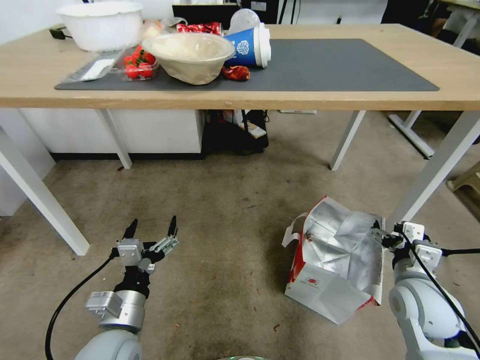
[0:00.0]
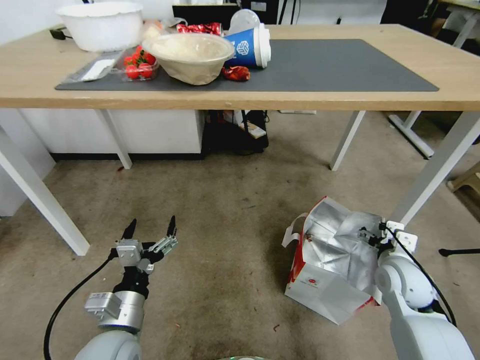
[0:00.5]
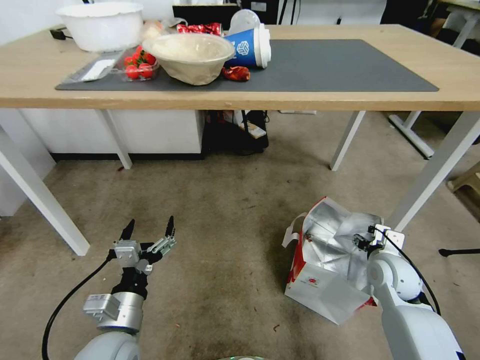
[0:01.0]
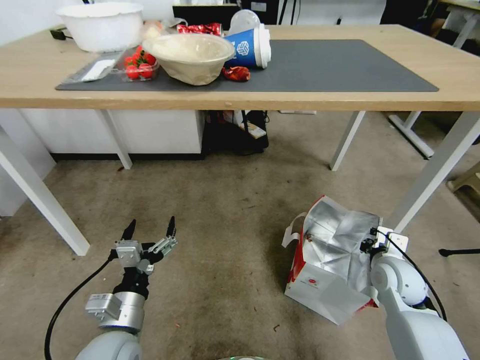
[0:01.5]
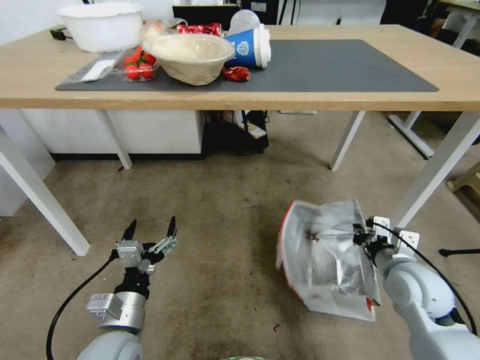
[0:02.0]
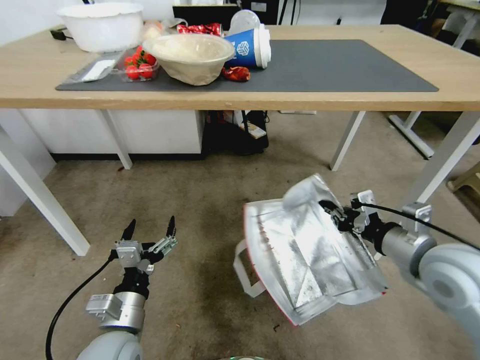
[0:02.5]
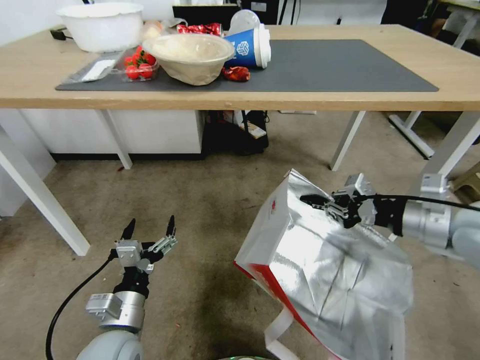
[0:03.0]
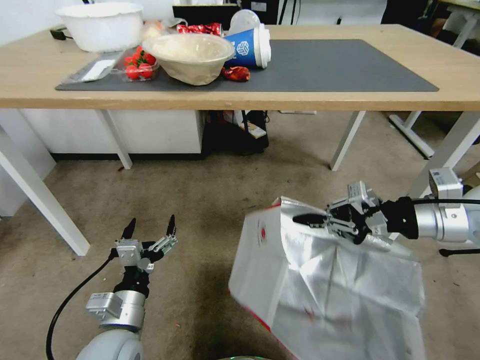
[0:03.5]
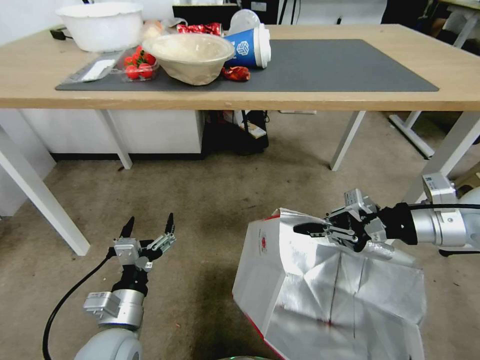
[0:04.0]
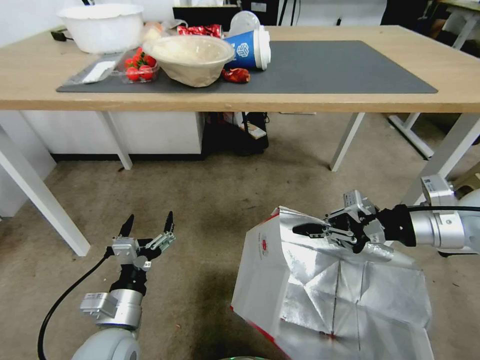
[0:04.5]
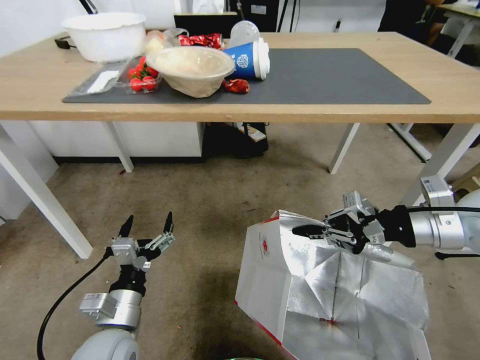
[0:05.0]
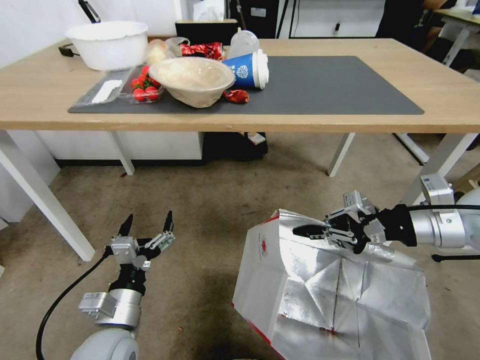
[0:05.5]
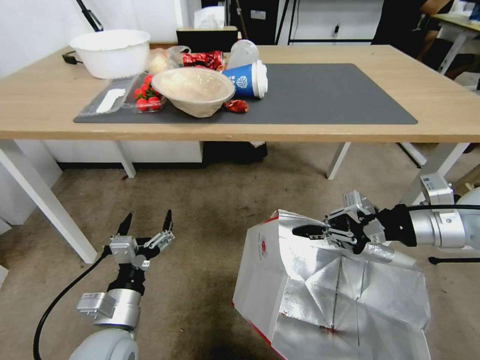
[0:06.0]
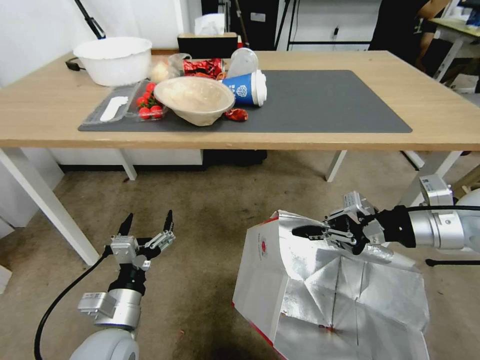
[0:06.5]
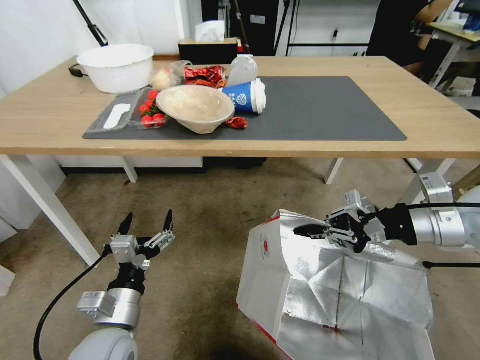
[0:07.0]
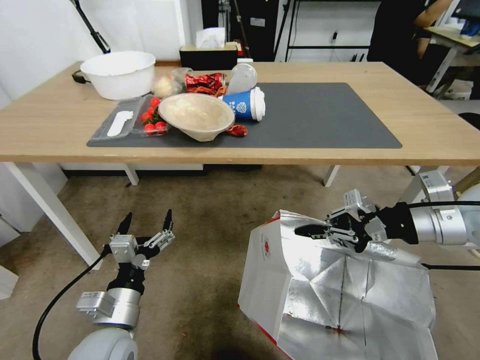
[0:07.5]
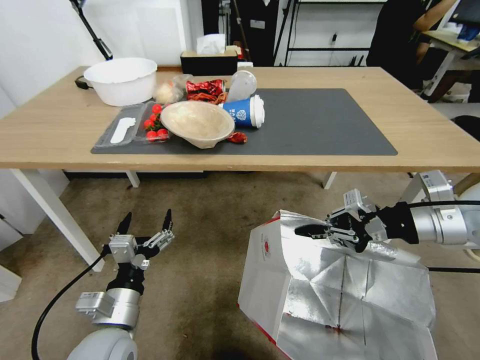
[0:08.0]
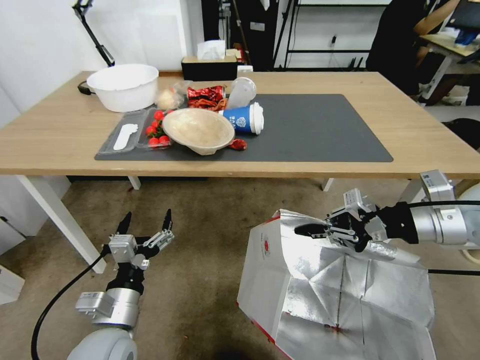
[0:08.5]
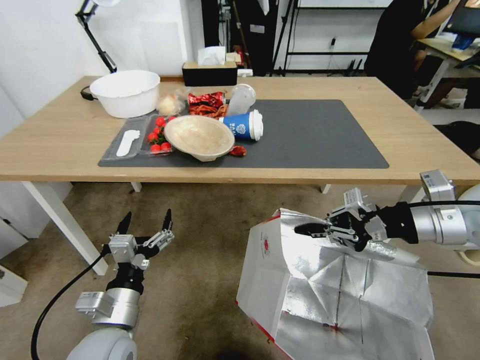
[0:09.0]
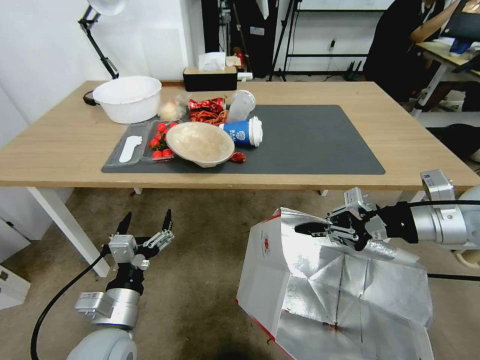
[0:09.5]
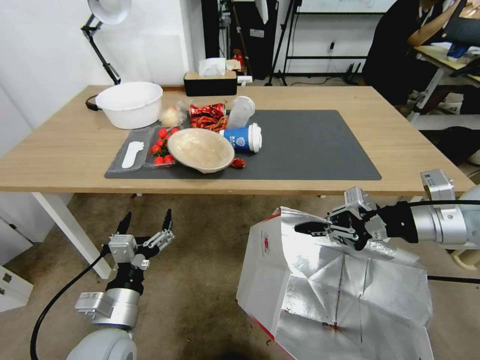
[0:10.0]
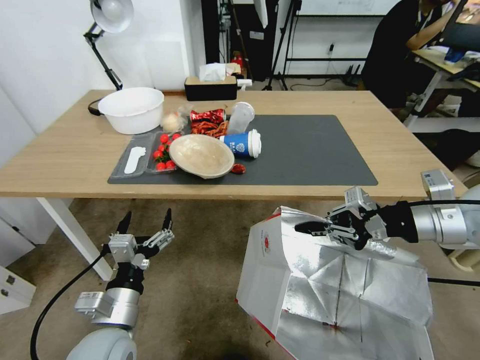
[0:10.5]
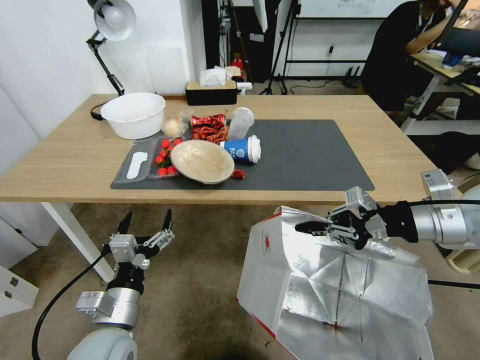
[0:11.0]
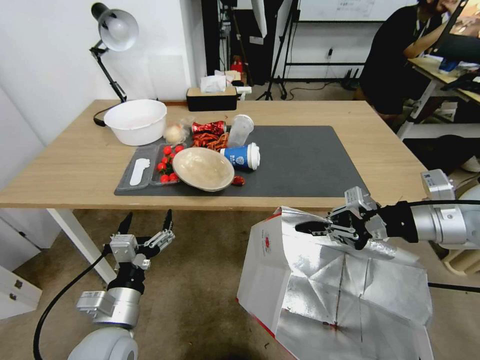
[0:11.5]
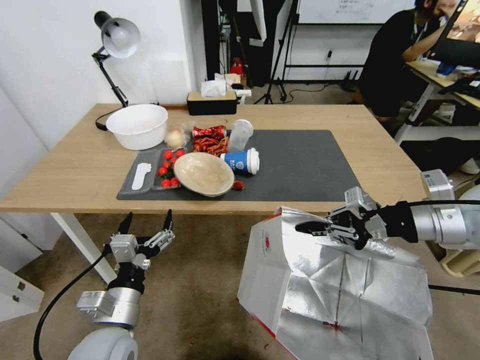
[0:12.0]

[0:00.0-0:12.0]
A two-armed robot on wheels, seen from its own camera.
Task of the whole recording: Pick up the food delivery bag from the floor and place it on the table.
0:00.0 to 0:02.0: The right gripper closes up.
0:02.0 to 0:04.0: The right gripper is displaced upward by some 20 cm.

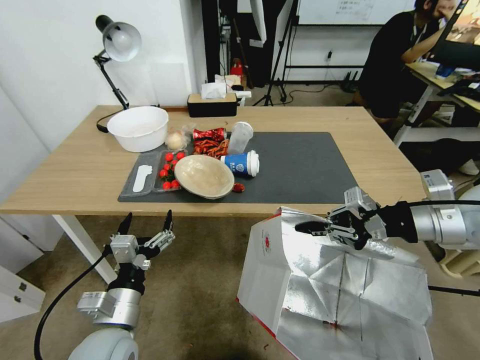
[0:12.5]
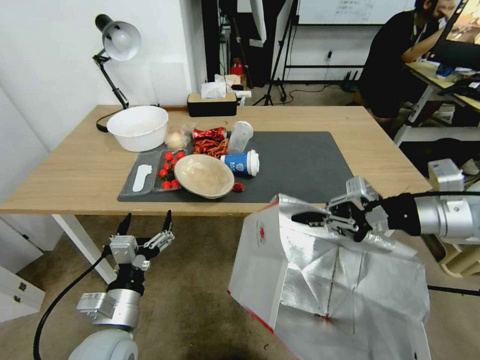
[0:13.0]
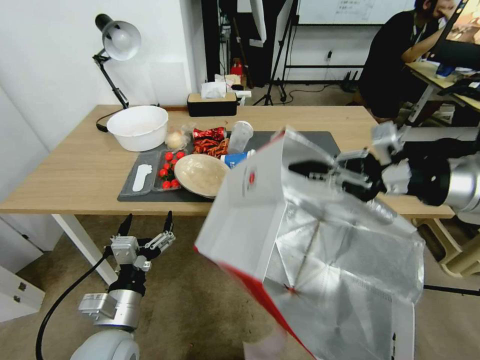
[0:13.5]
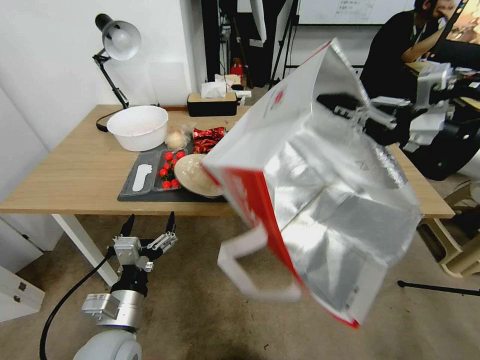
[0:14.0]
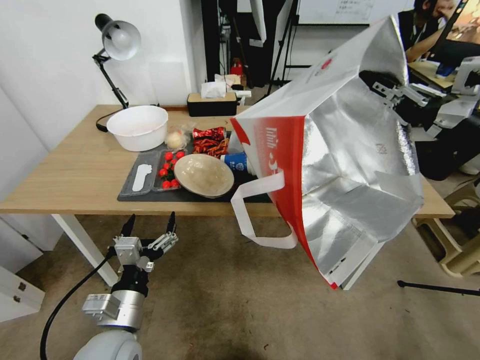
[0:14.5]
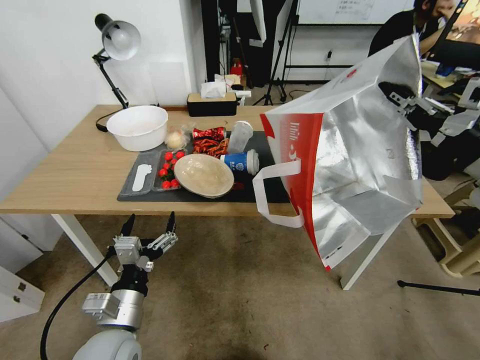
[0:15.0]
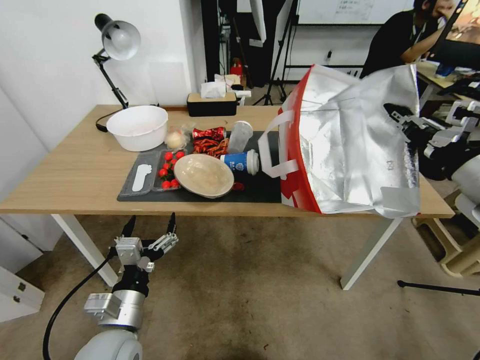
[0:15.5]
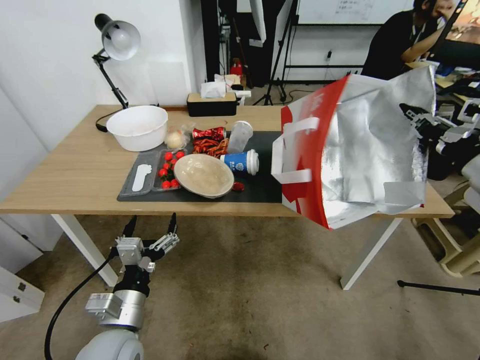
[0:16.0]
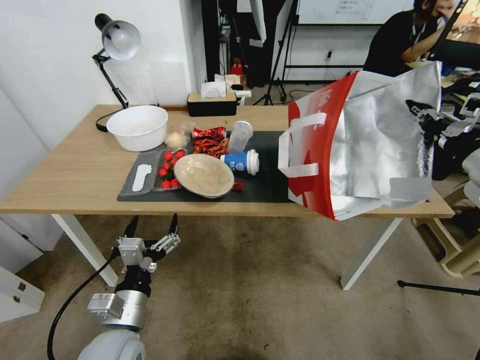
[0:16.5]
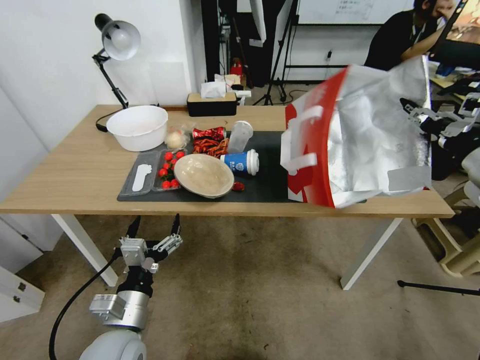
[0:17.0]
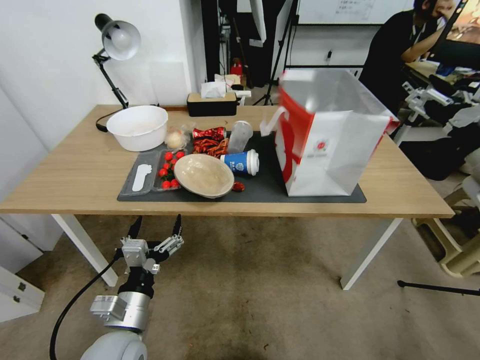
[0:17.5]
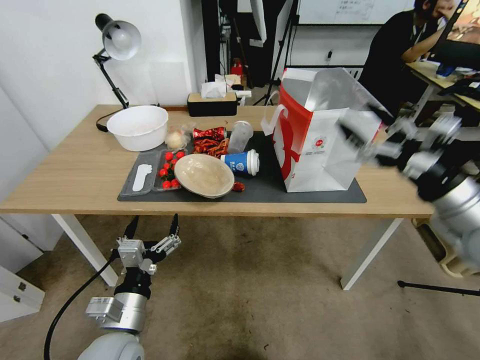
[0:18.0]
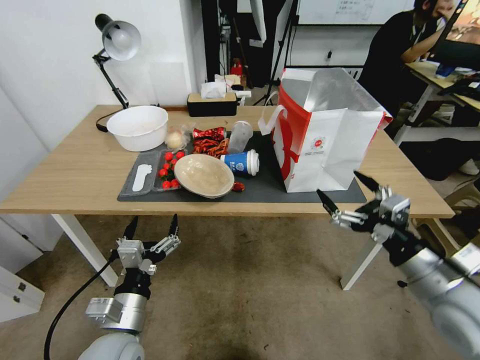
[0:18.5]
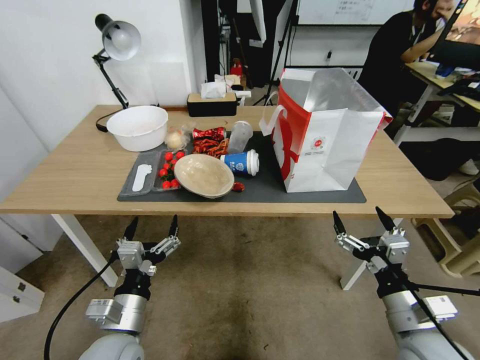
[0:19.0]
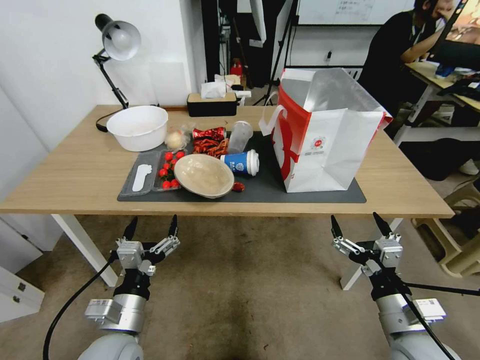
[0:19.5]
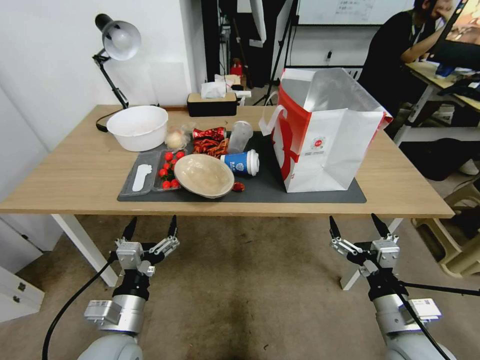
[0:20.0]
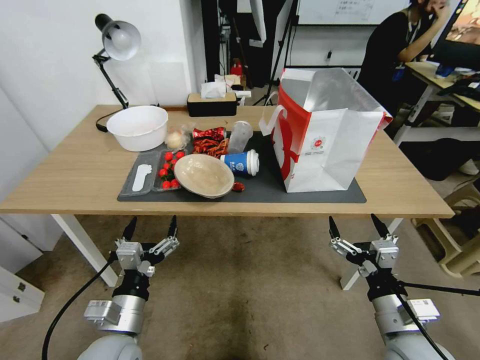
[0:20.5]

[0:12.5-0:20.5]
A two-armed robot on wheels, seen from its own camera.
Task of the whole recording: Pick up the food delivery bag from the floor and place it on the table.
0:12.5 to 0:14.5: The right gripper moves upward, some 10 cm.
0:14.5 to 0:16.5: The right gripper is displaced downward and to the right by approximately 10 cm.
0:16.5 to 0:18.5: The right gripper shifts roughly 20 cm downward, backward and to the left, and opens up.
0:18.5 to 0:20.5: The right gripper shifts some 10 cm downward and to the left.

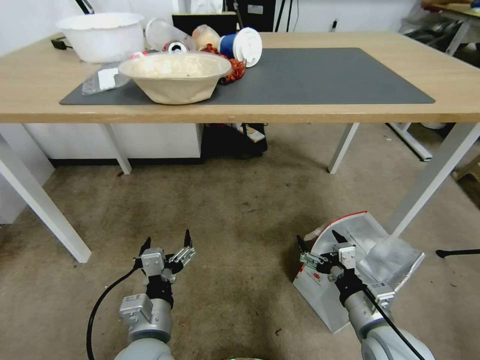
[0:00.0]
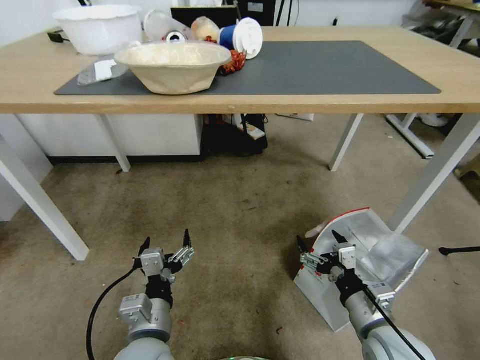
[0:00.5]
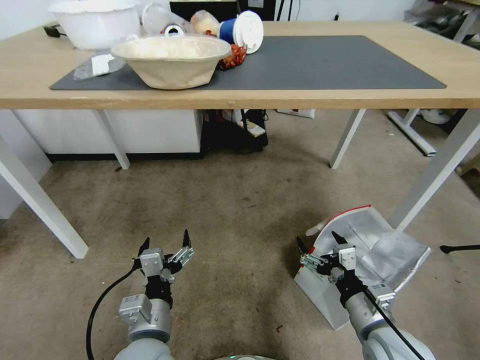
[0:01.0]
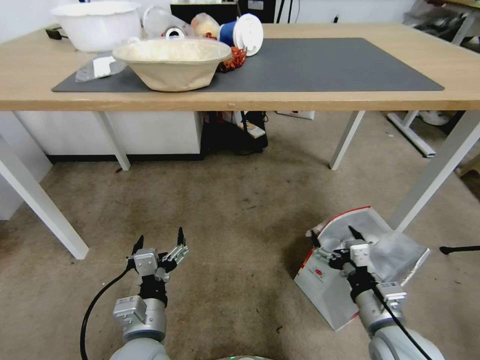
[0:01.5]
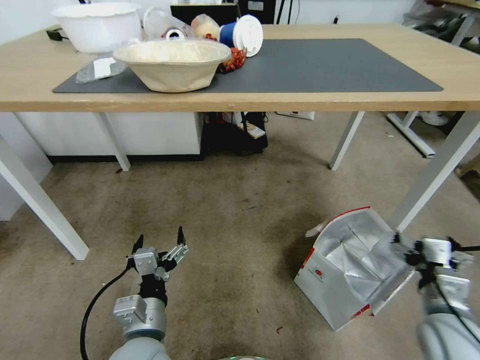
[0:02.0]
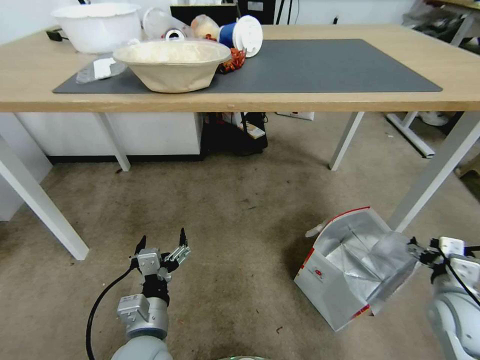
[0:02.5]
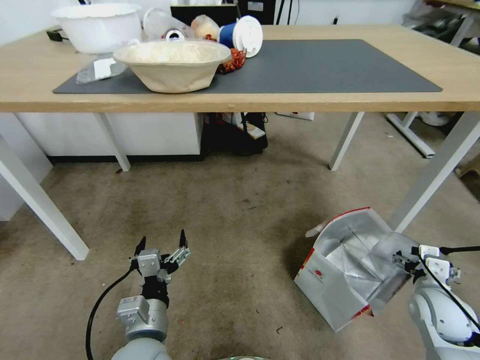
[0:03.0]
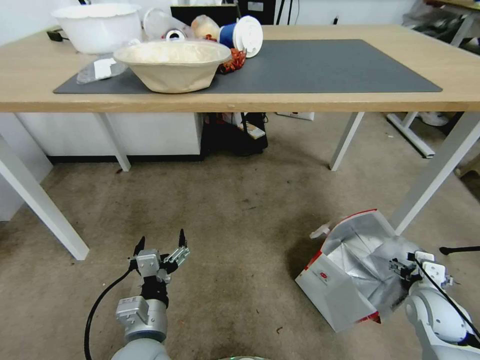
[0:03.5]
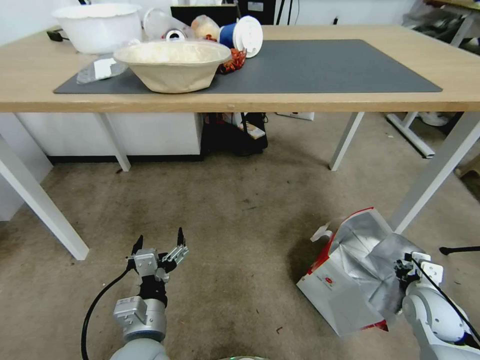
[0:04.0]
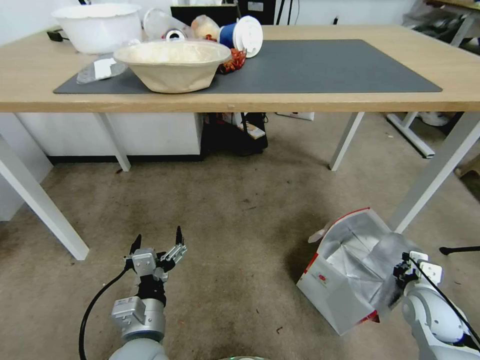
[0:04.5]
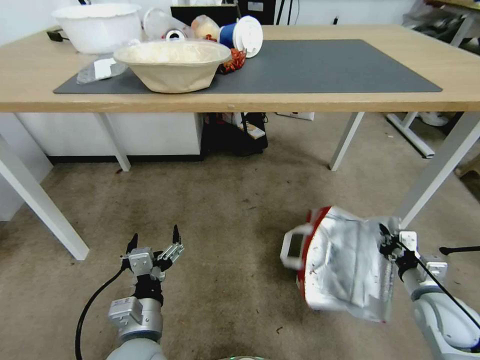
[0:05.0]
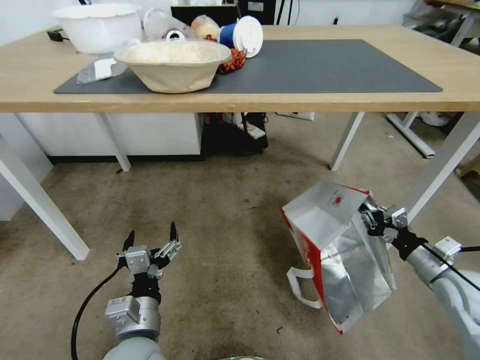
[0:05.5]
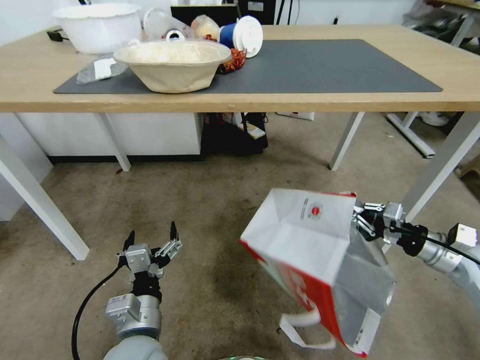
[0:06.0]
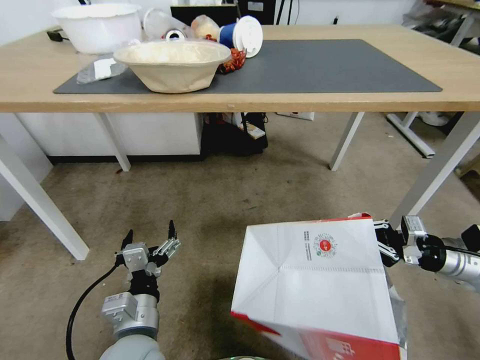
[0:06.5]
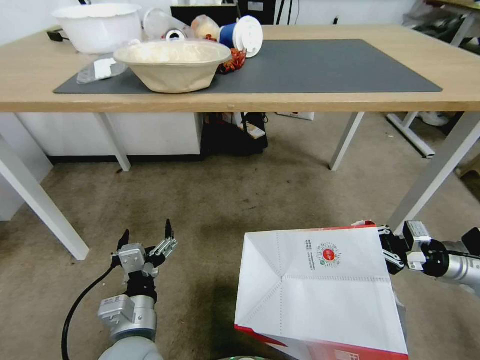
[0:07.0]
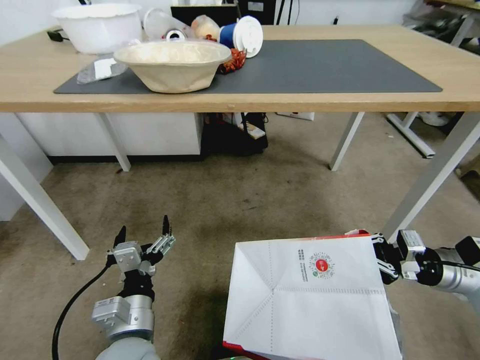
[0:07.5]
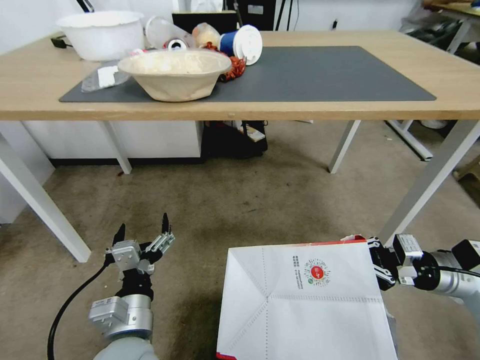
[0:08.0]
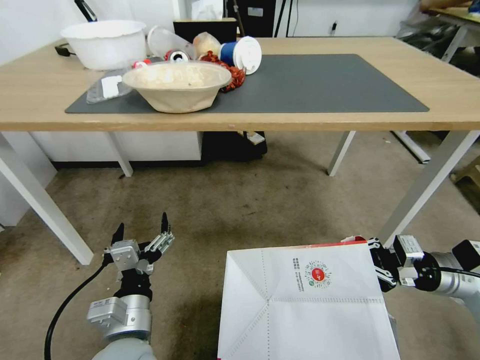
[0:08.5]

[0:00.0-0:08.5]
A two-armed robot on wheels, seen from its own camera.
Task of the whole recording: Pick up the food delivery bag from the floor and place it on the table.
0:00.0 to 0:02.0: The right gripper shifts about 10 cm to the right.
0:02.0 to 0:04.0: The right gripper heads downward, forward and to the right, covering approximately 15 cm, and closes its fingers.
0:04.0 to 0:06.5: The right gripper shifts approximately 15 cm upward and to the right, and closes.
